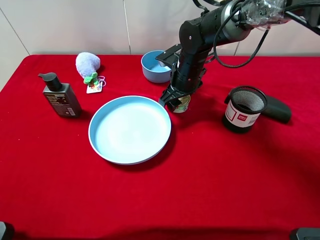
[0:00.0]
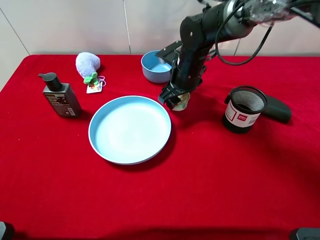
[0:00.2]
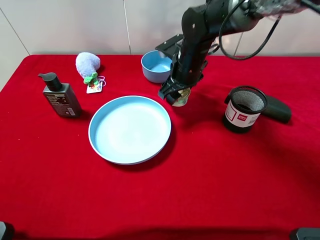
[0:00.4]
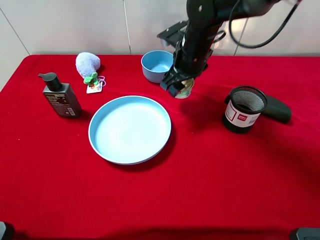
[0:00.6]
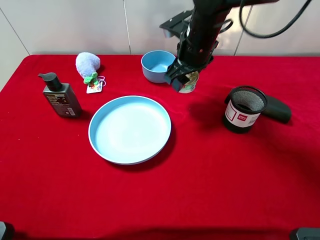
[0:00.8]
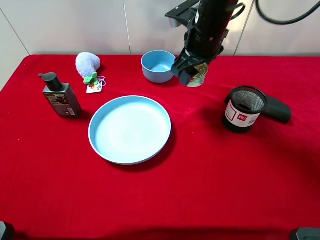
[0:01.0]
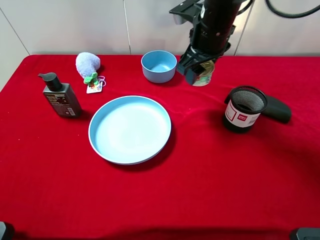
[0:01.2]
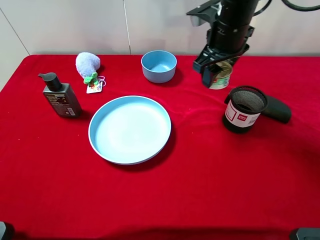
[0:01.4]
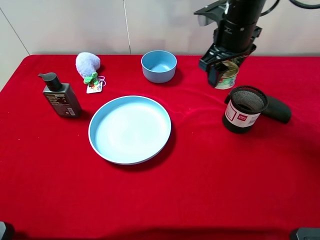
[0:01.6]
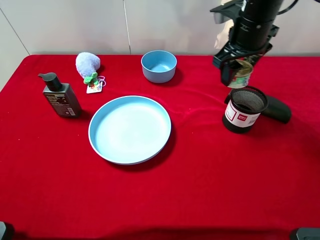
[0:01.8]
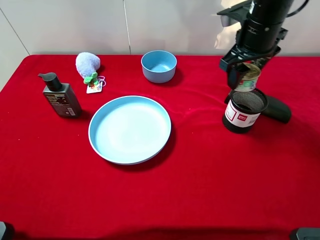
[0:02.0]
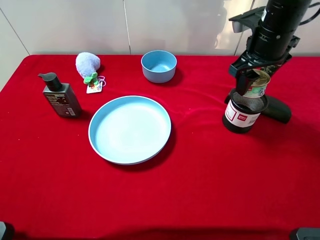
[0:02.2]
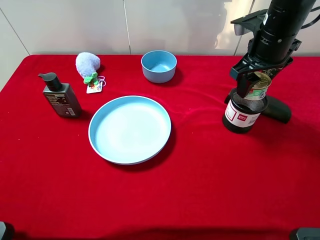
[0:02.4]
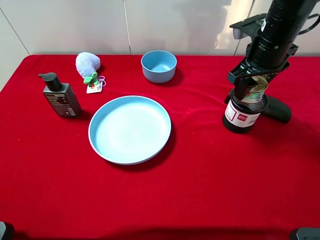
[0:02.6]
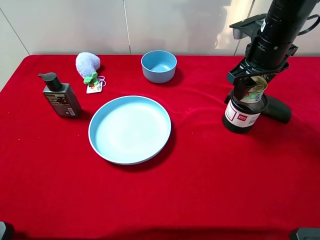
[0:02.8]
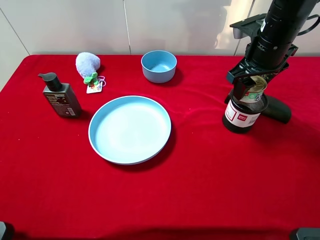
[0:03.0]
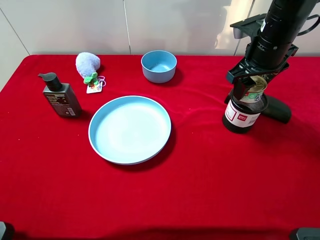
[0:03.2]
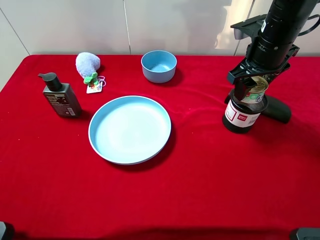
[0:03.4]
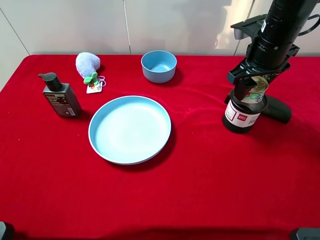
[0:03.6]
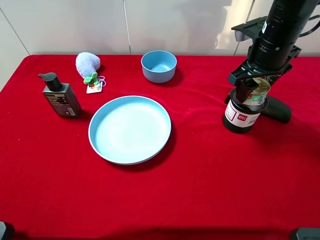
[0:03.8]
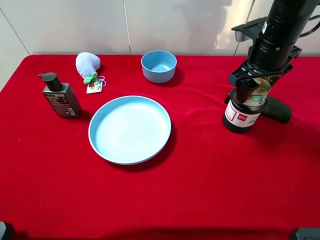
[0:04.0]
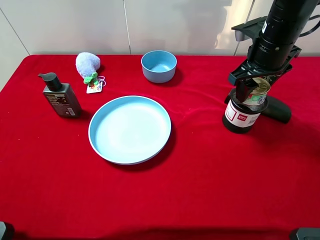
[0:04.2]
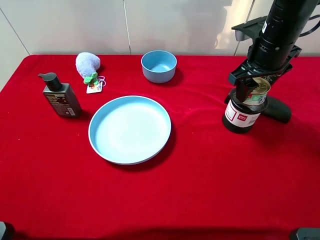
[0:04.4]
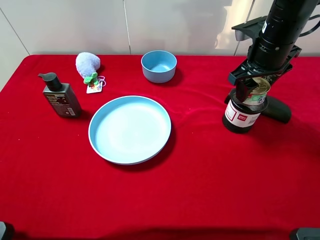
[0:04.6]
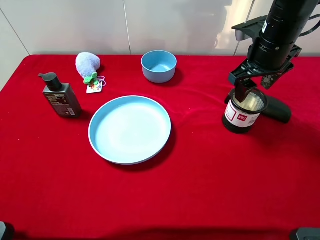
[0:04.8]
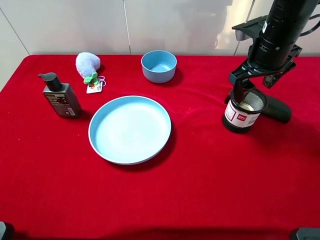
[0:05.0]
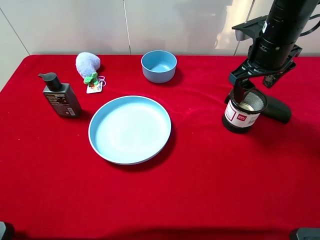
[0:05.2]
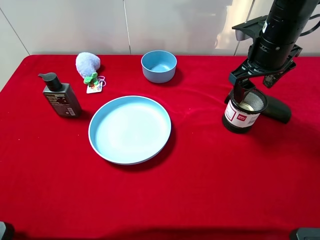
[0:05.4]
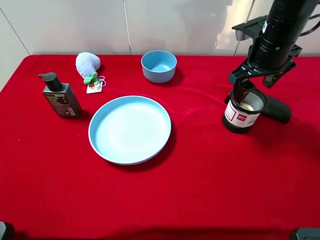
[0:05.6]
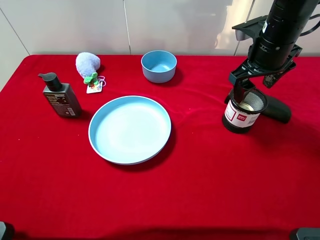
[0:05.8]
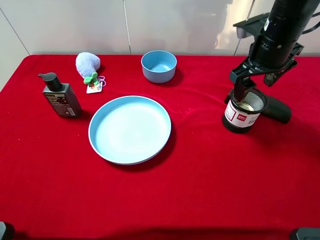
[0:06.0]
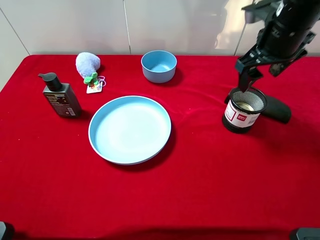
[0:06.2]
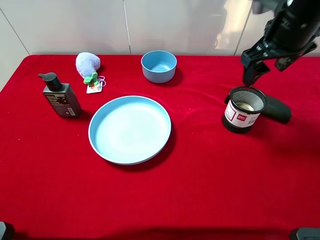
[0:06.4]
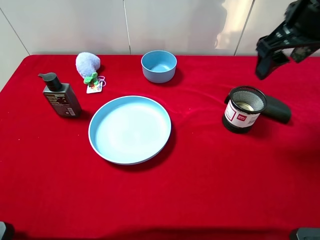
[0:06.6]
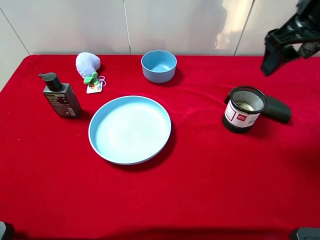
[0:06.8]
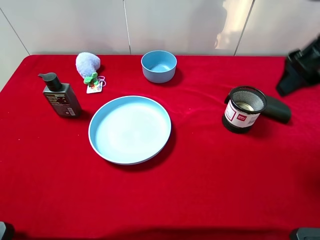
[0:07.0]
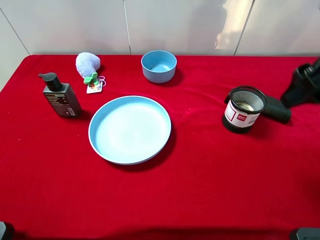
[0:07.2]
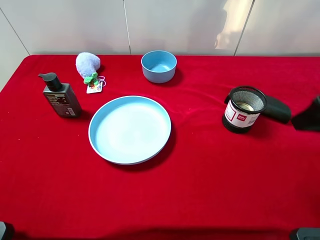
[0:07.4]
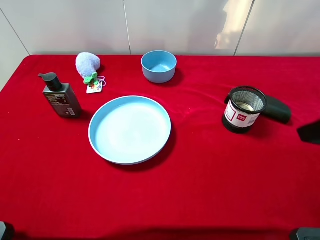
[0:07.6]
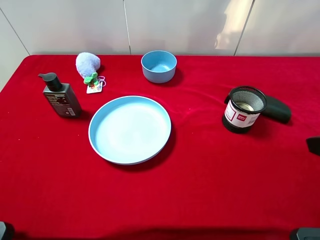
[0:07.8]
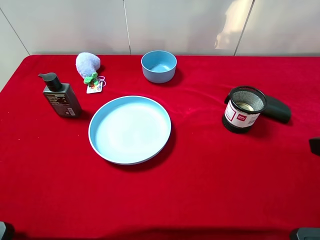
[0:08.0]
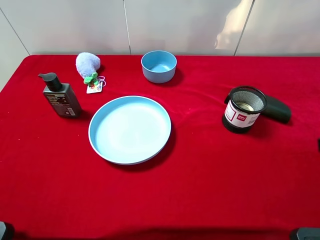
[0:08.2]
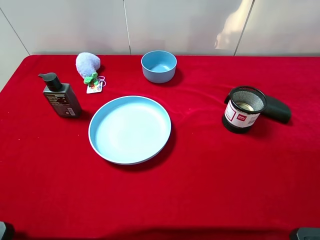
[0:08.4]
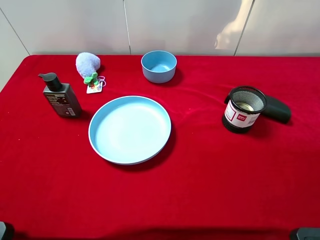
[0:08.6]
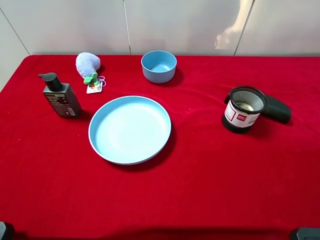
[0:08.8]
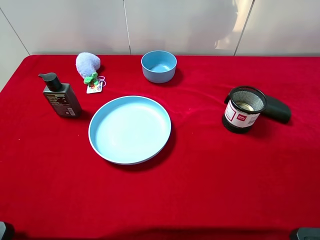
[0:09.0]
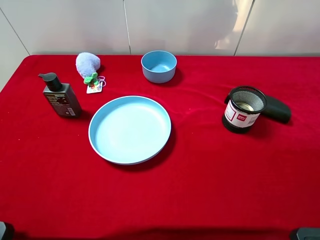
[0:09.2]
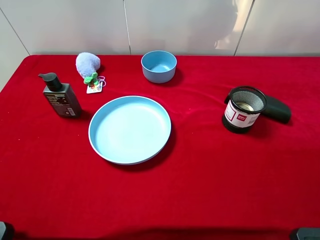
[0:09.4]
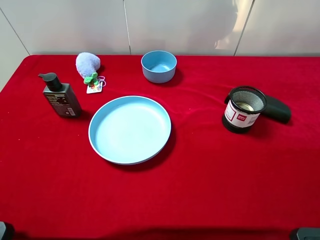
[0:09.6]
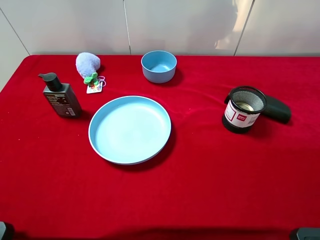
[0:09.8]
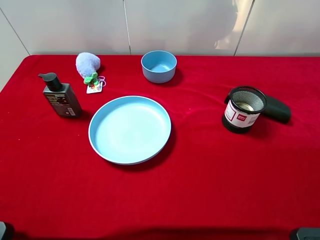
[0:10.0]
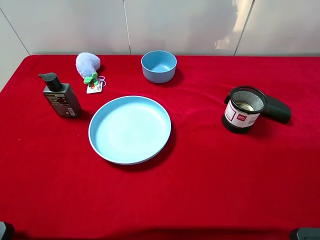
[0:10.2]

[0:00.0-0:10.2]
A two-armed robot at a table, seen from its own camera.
Task of the whole recording: pick up an item with a gripper and place it in a random container on the desktop.
0:00.0 to 0:01.4: The right gripper travels upward and to the right by roughly 15 cm.
0:01.4 to 0:03.0: The right gripper moves to the right, some 5 cm.
0:03.0 to 0:04.4: The two grippers keep their place.
0:04.4 to 0:05.8: The right gripper opens up.
0:05.8 to 0:07.2: The right gripper is displaced backward and upward by approximately 15 cm.
0:07.2 to 0:08.8: The right gripper shifts roughly 15 cm backward.
0:08.8 to 0:10.2: Both grippers stay about where they are.

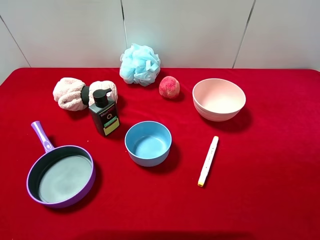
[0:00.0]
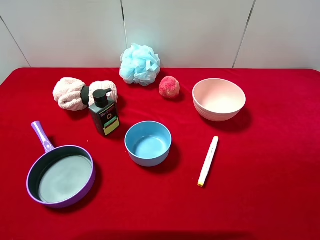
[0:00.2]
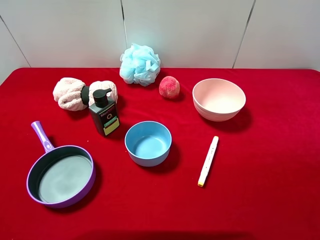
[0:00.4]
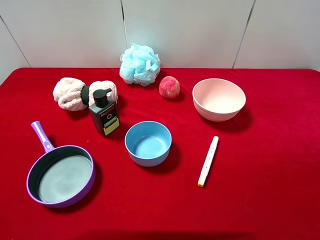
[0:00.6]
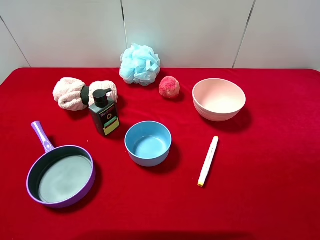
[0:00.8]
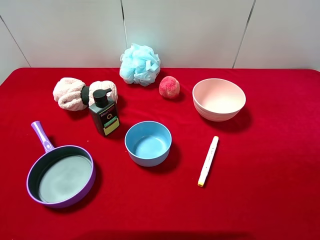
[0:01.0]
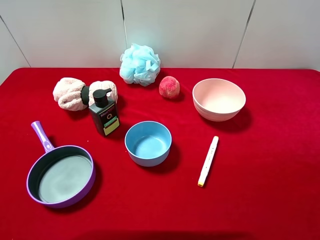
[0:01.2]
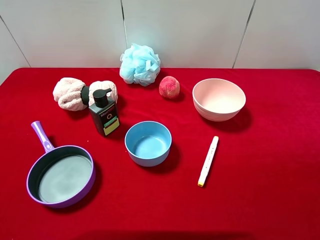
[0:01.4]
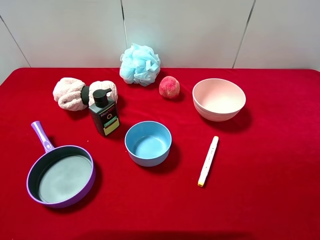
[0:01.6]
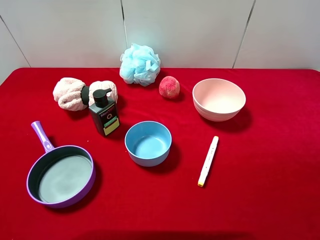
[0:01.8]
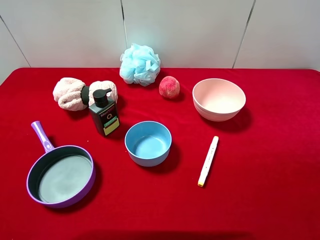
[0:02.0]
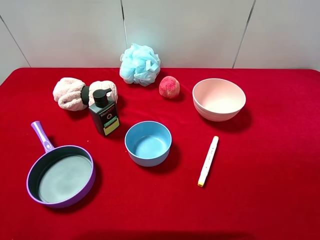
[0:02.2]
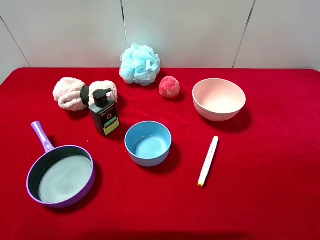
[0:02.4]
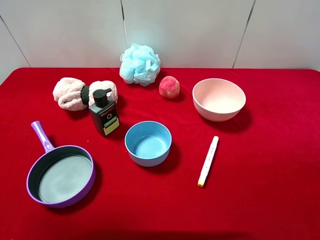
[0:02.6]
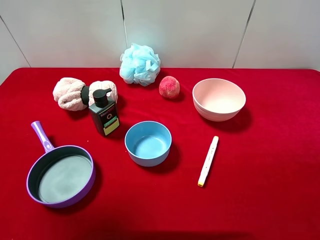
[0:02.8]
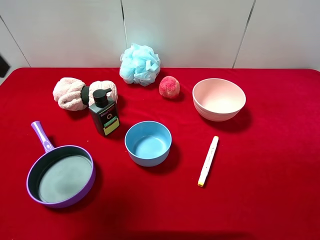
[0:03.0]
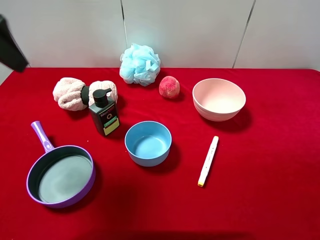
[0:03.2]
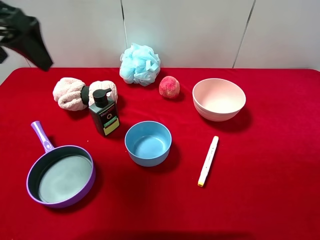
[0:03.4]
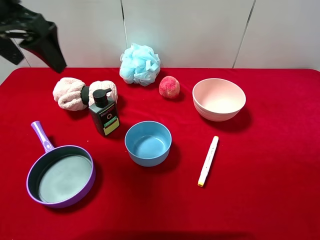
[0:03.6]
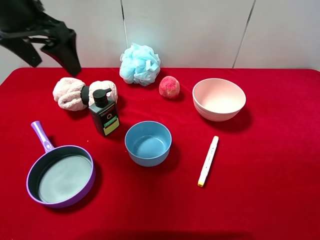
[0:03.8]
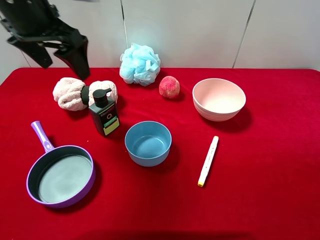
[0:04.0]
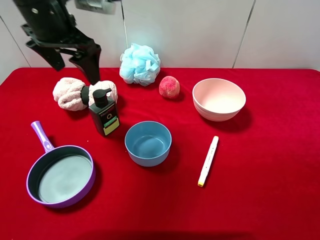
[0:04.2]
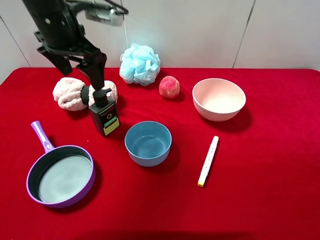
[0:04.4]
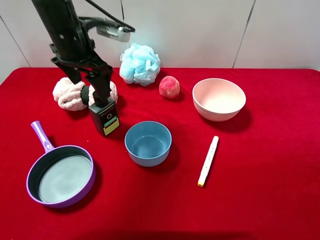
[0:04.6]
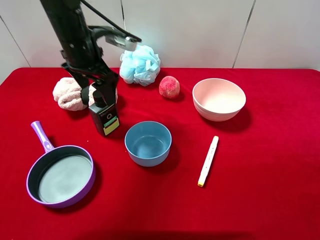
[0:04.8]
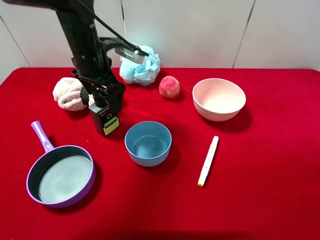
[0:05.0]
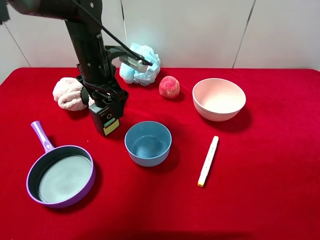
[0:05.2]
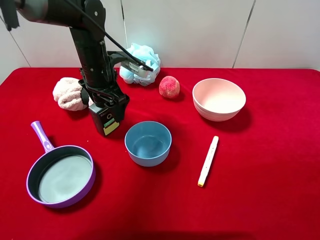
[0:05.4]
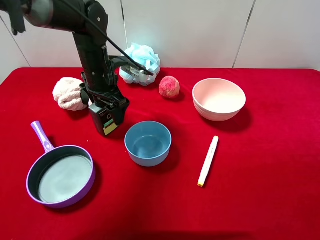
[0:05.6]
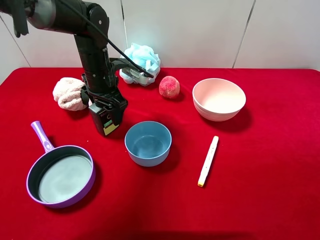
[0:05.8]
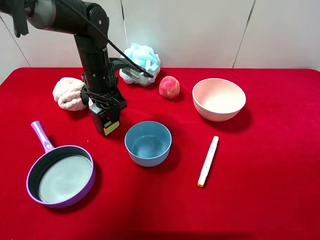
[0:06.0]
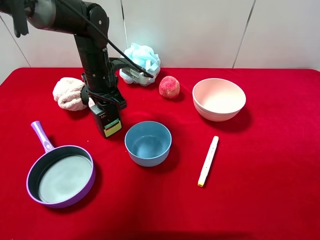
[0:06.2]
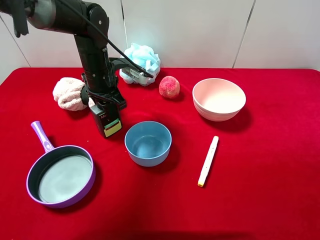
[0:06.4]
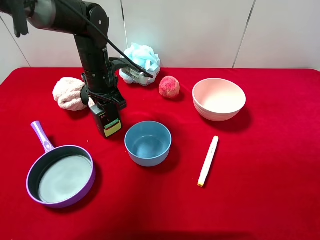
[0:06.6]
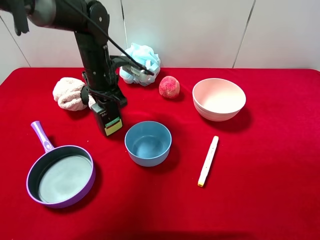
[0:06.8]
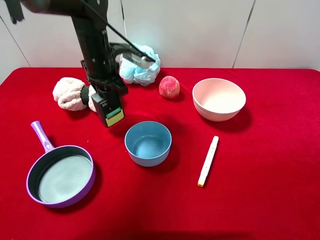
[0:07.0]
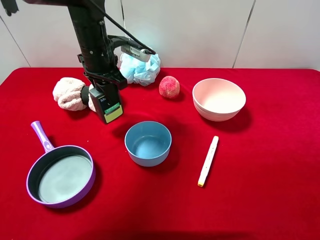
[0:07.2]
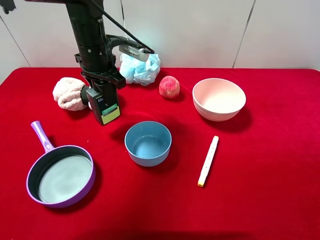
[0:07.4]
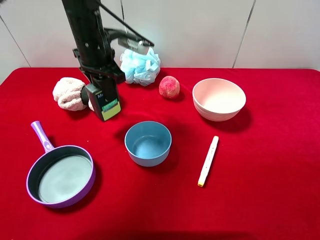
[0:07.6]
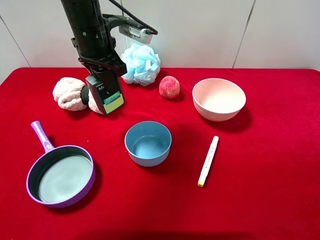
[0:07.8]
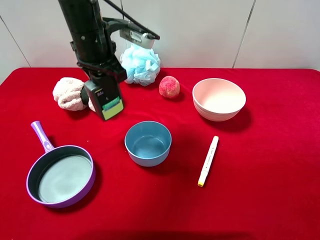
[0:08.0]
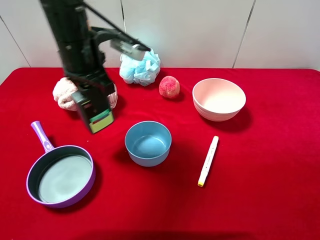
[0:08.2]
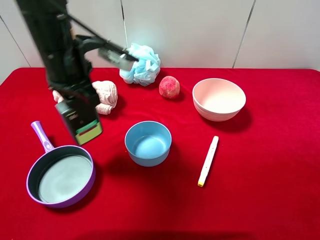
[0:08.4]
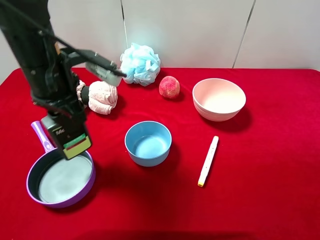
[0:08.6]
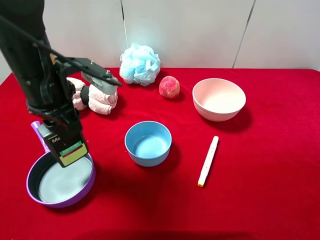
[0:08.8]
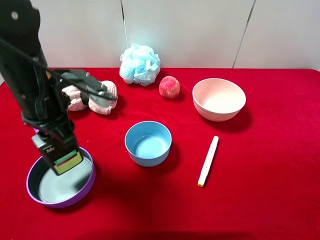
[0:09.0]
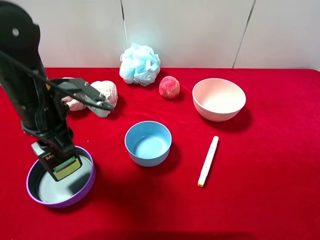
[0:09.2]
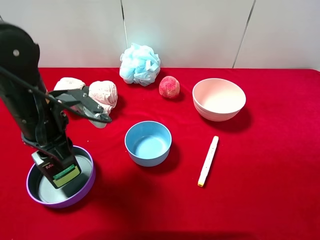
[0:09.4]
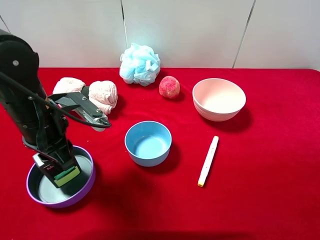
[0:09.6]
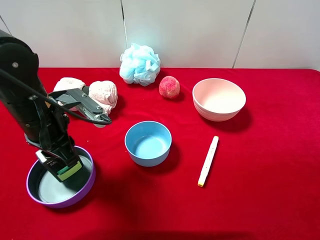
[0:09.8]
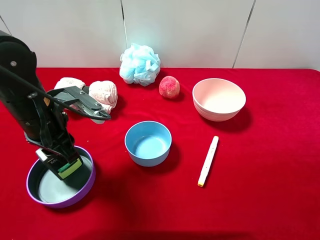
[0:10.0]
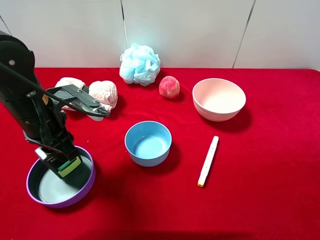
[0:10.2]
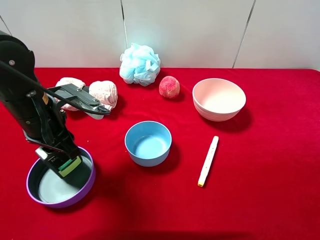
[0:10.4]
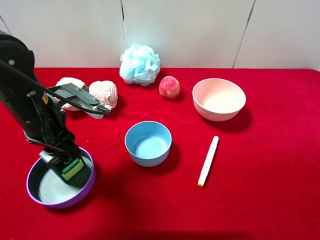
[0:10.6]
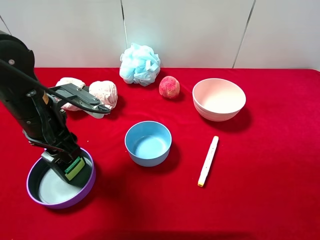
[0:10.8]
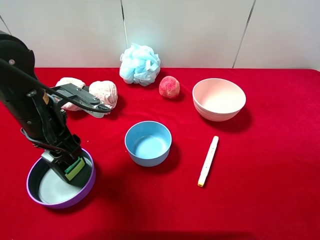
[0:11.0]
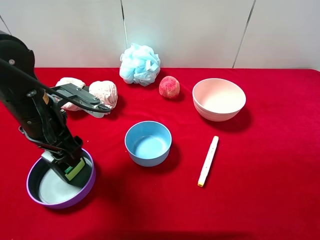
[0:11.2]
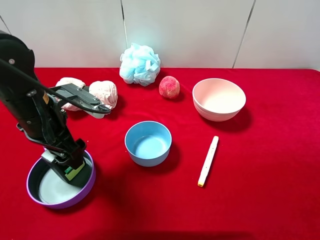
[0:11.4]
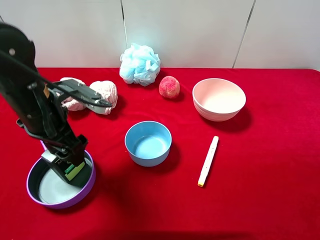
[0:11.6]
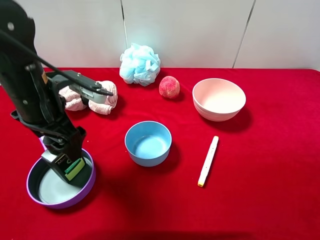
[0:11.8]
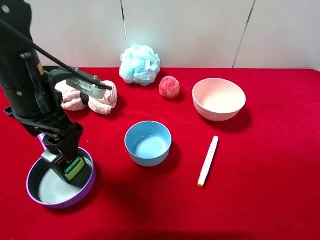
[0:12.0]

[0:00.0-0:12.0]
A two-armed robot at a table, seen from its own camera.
Task of the whole recording: pick up an item with a gripper and place it in a random container on the desktop.
0:00.0 to 0:01.6: Both grippers stay put.
0:01.6 to 0:03.0: The left gripper moves forward and upward, roughly 20 cm.
0:03.0 to 0:04.4: The left gripper shifts roughly 20 cm forward, to the right and downward.
0:04.4 to 0:06.0: The left gripper shifts about 10 cm downward, and closes up.
0:06.0 to 0:07.6: The left gripper is displaced upward by approximately 5 cm.
0:07.6 to 0:09.0: The left gripper goes some 15 cm backward.
0:09.0 to 0:10.4: There are only small adjustments of the grippers.
0:10.4 to 0:12.0: The left gripper opens up.
